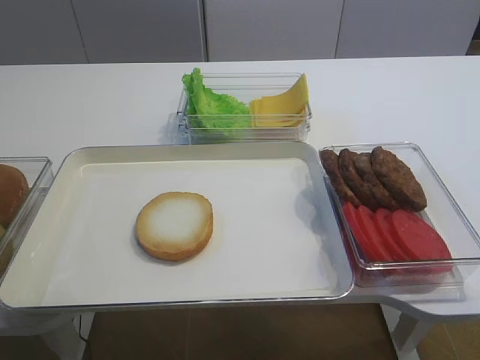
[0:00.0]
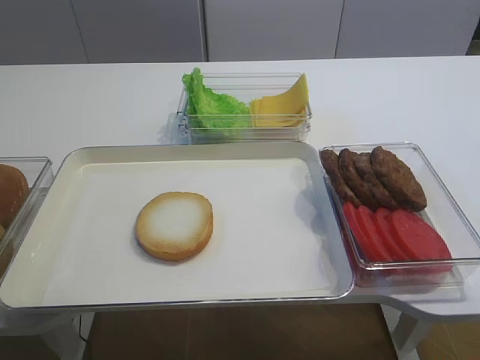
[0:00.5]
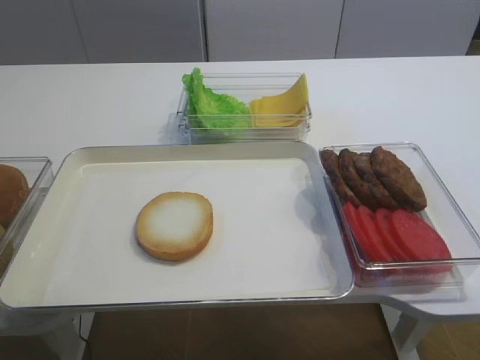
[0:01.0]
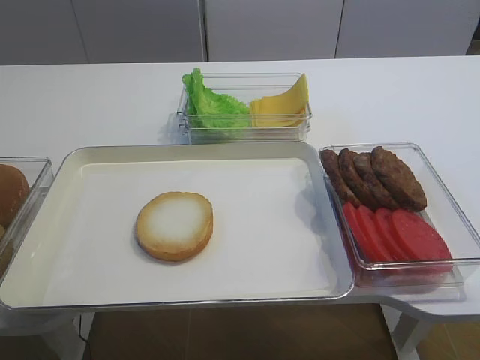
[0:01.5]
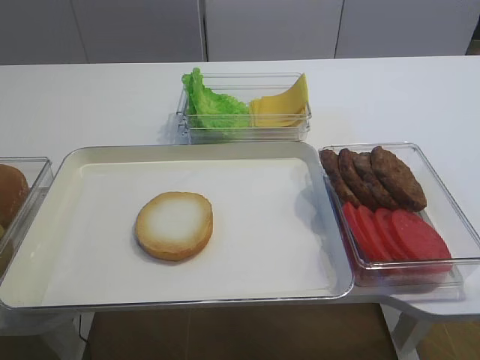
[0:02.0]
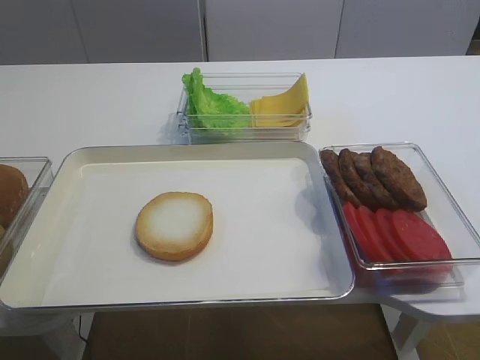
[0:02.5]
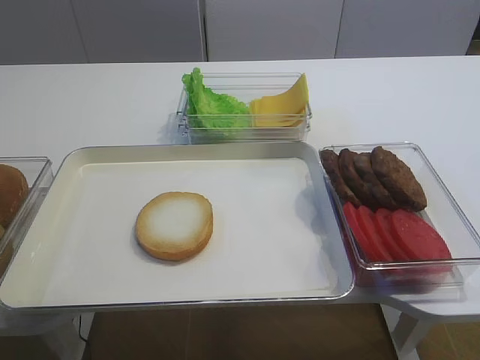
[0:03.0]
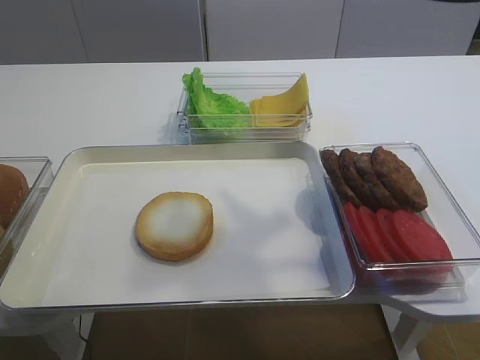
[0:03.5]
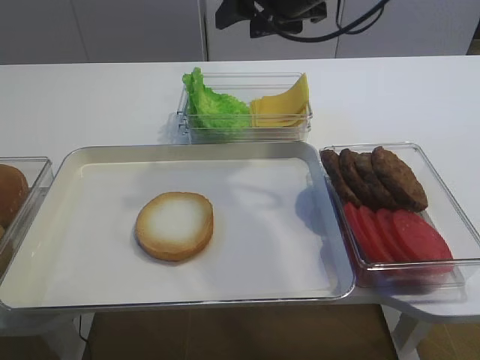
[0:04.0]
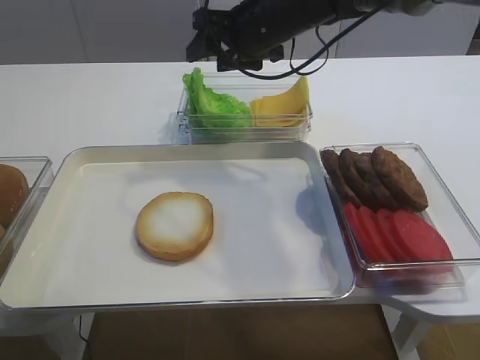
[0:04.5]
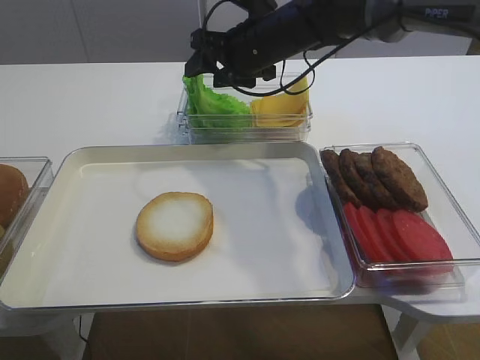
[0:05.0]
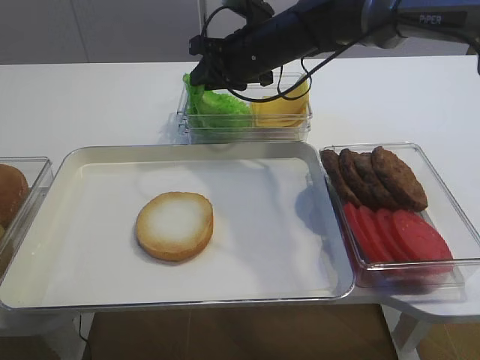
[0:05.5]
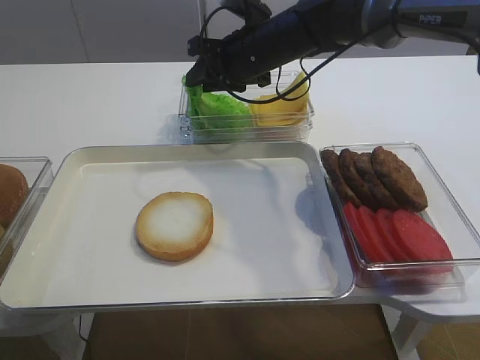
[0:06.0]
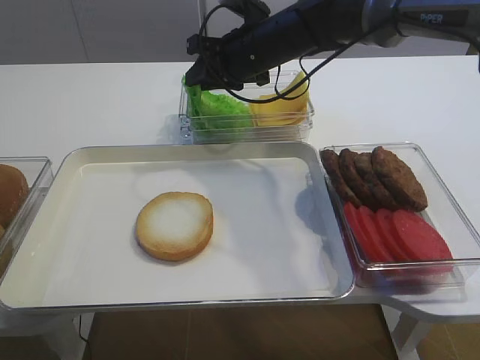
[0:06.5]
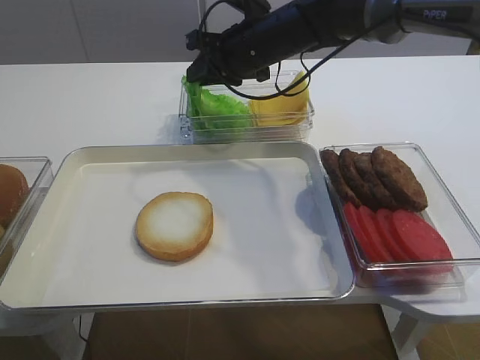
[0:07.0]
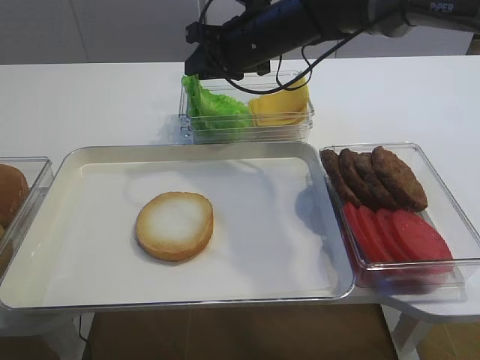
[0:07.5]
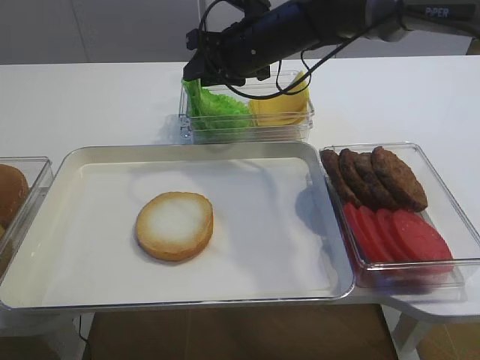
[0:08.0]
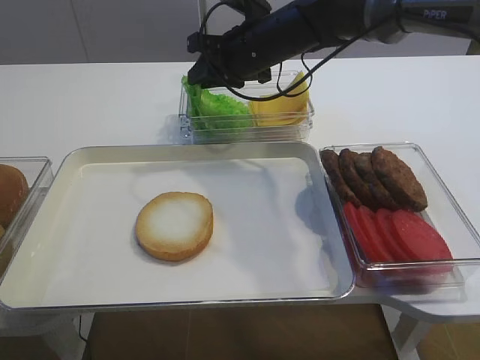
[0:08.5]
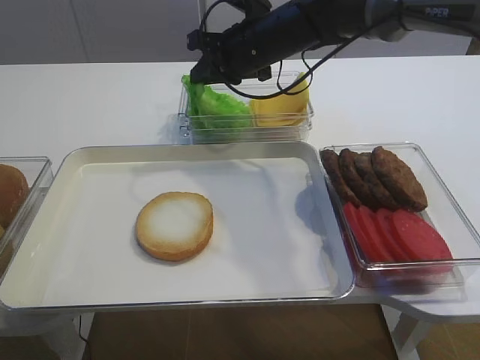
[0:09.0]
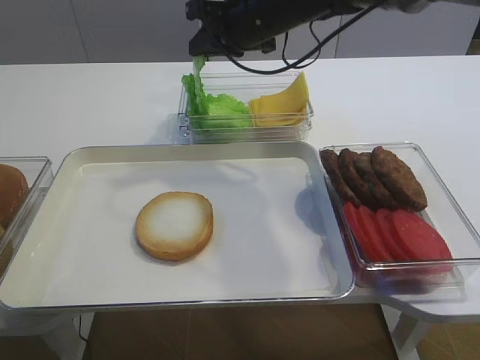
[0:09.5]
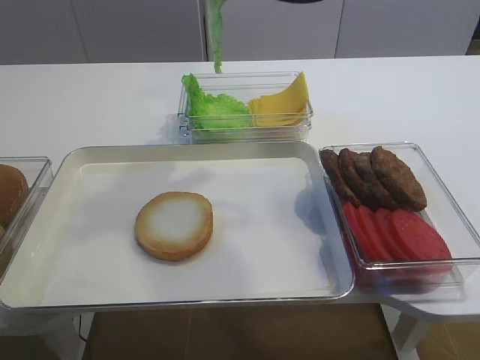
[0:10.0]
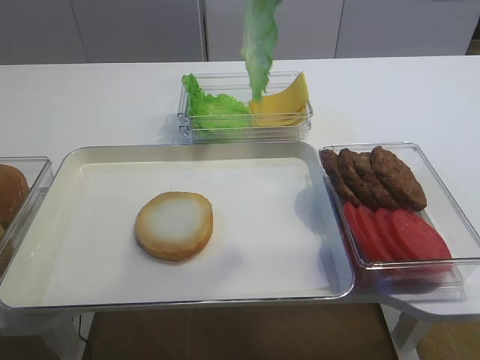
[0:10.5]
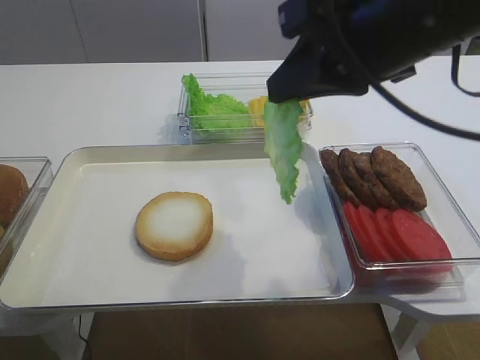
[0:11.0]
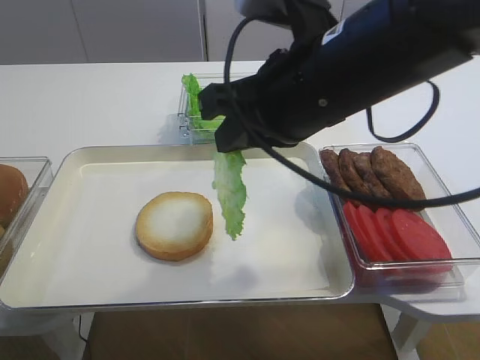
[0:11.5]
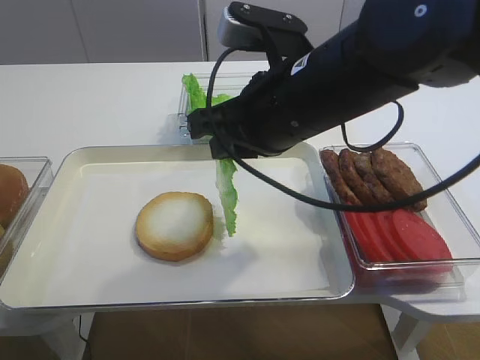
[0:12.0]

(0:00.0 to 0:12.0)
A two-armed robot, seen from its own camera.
Step, 0:00.0 - 0:09.0: Pick up the lettuce leaf with the right gripper.
0:02.0 - 0:04.0: The right gripper is displaced forward and to the left by some 50 cm.
0:04.0 - 0:06.0: The right gripper shifts some 10 cm downward, and closes.
0:06.0 - 0:08.0: There are only small adjustments of the grippers.
0:08.0 - 0:10.0: The right gripper moves upward and backward, roughly 15 cm, and closes up.
0:10.0 - 0:12.0: The right gripper is displaced backward and downward by some 15 cm.

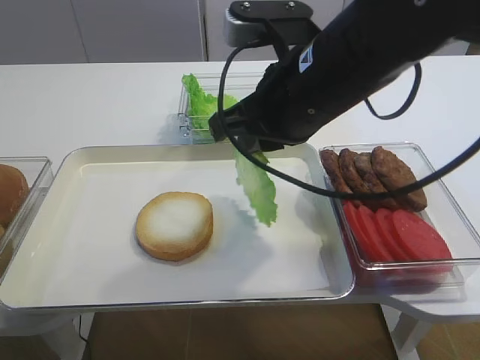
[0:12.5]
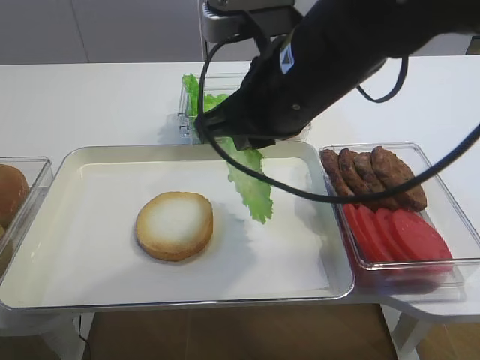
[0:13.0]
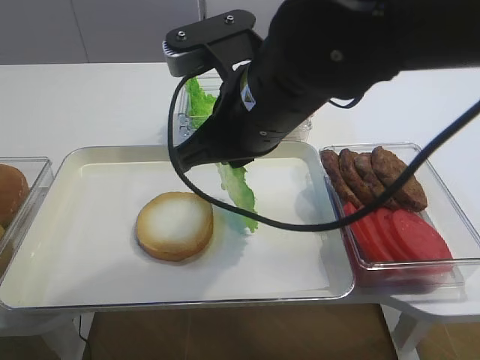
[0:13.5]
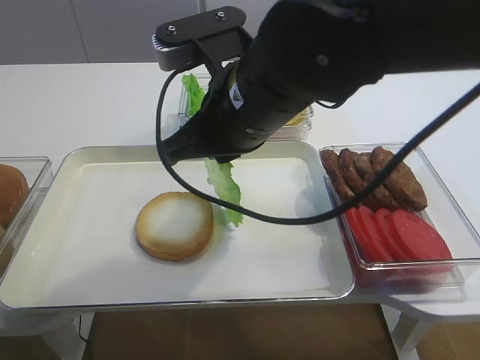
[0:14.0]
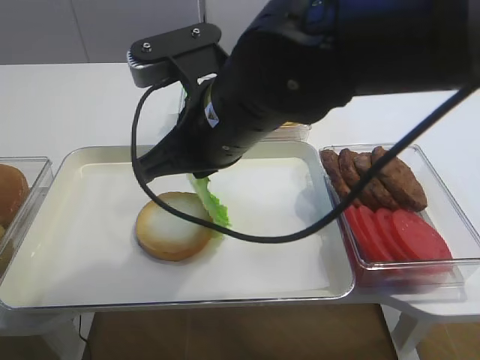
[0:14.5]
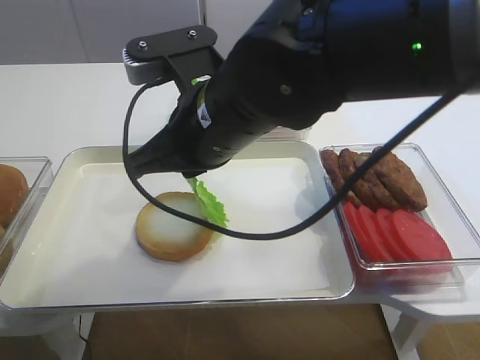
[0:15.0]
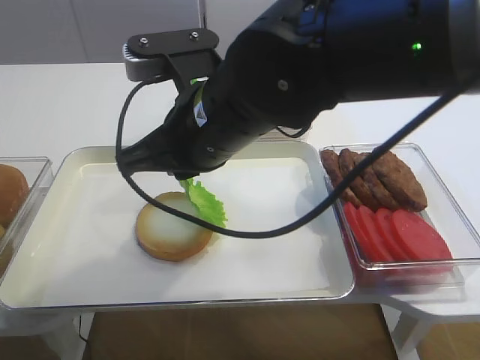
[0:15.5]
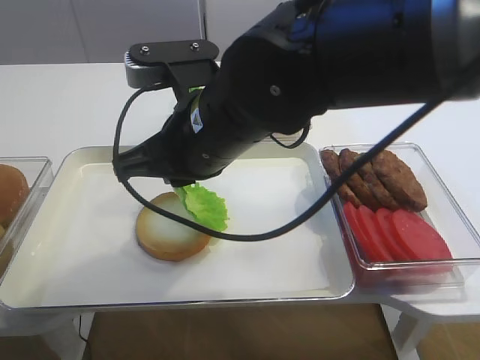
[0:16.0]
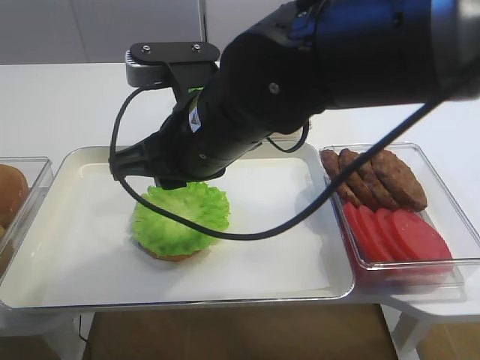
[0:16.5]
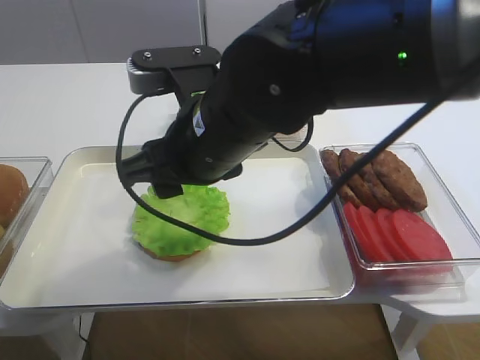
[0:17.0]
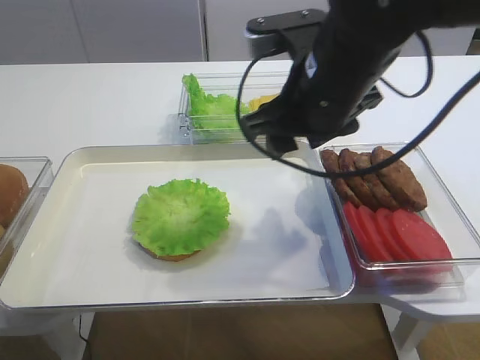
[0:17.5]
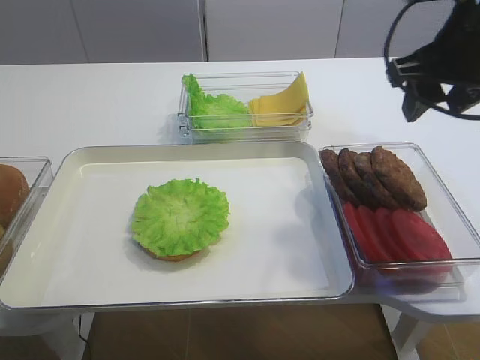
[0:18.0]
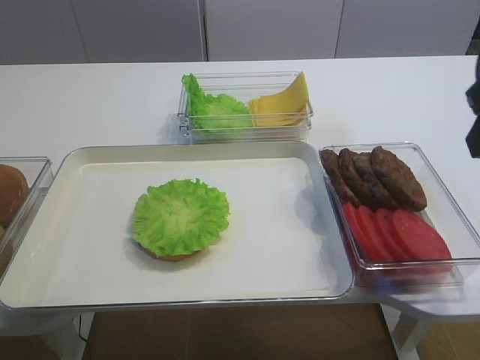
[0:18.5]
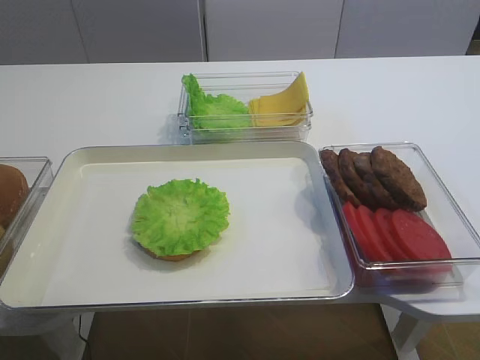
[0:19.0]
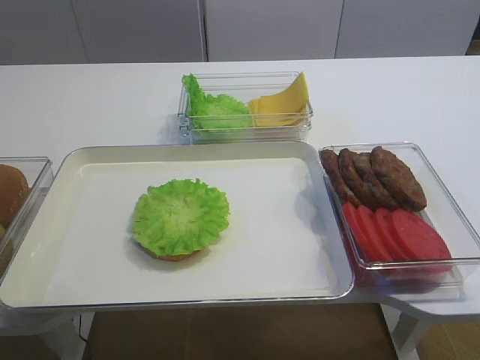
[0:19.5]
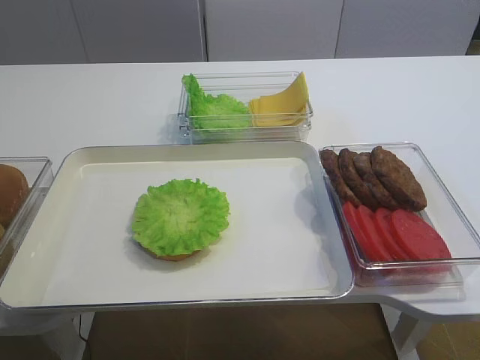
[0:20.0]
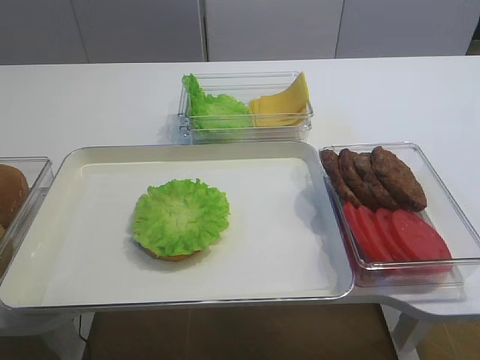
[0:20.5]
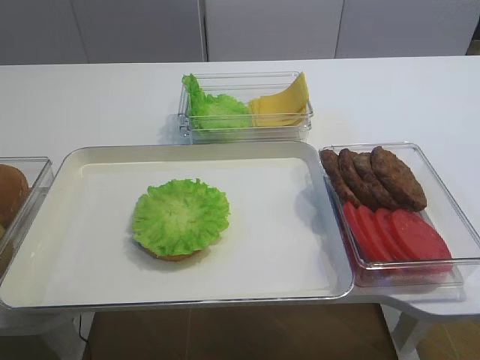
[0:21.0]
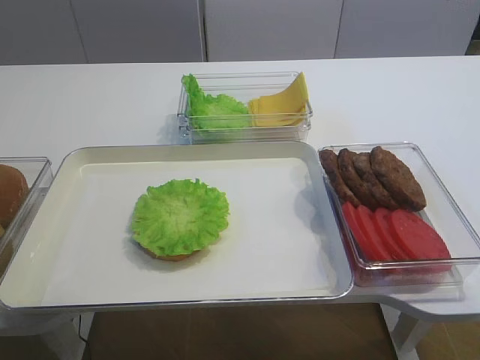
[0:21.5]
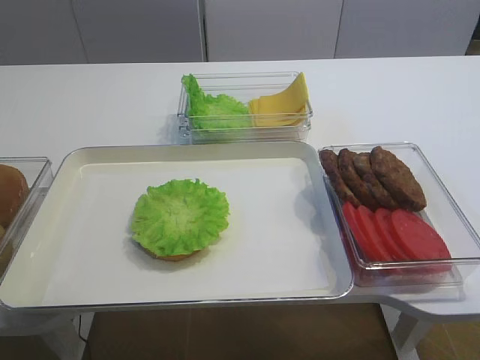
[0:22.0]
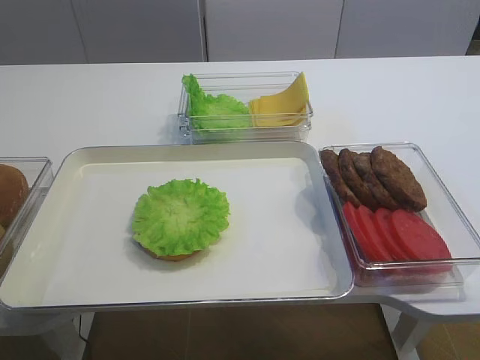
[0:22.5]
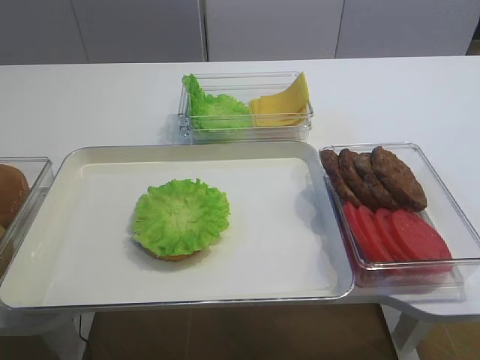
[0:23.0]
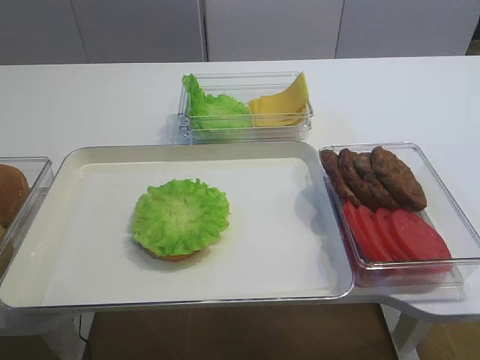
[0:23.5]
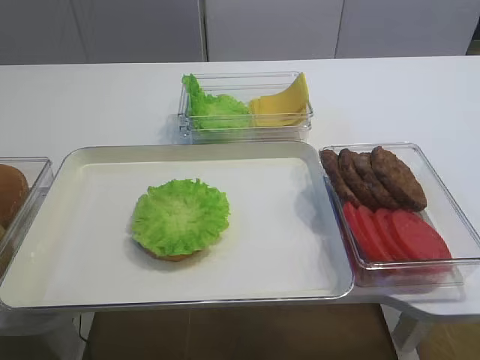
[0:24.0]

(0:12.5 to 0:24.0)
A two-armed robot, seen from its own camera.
Step, 0:12.5 - 0:16.5: Place the lettuce leaf on the bread slice with the right gripper.
0:12.5 - 0:14.5: The right gripper travels to the left by approximately 5 cm.
0:14.5 - 0:16.5: The grippers stay close to where they were, moving slightly.
0:16.5 - 0:18.5: The right gripper moves to the right, about 25 cm, and opens.
0:18.5 - 0:20.0: The right gripper heads backward, covering approximately 20 cm.
0:22.0 - 0:24.0: The two grippers keep their place.

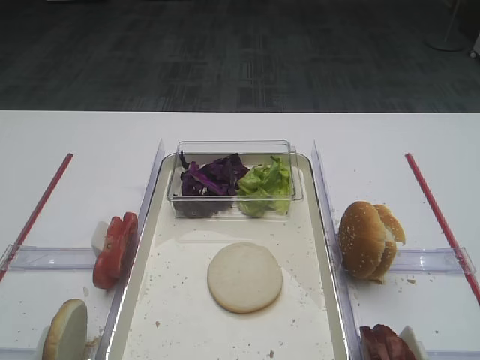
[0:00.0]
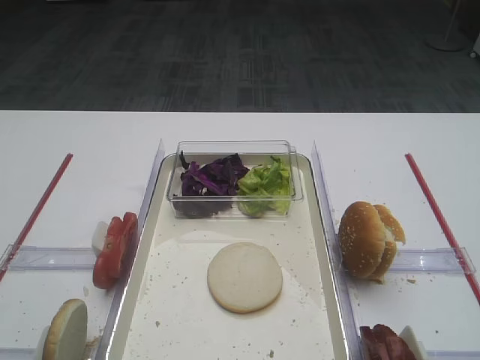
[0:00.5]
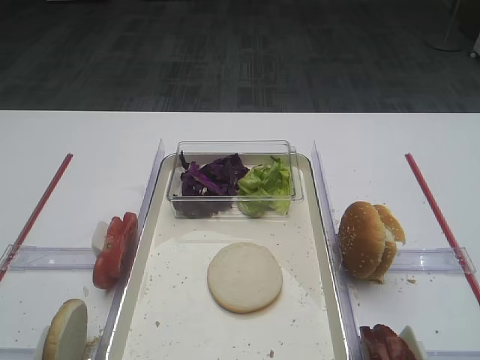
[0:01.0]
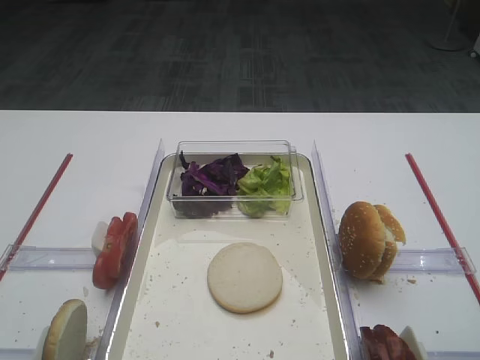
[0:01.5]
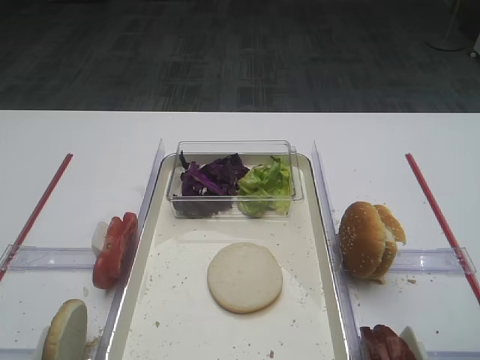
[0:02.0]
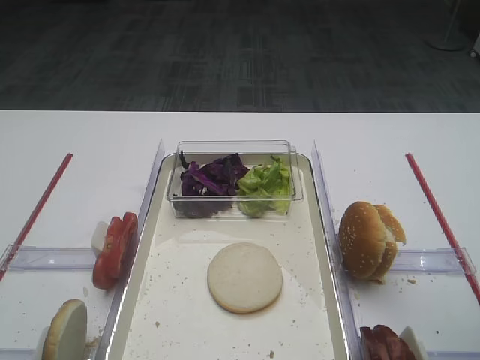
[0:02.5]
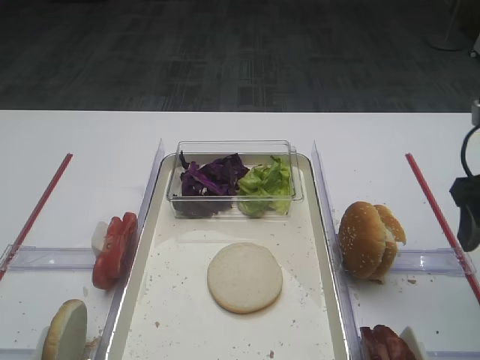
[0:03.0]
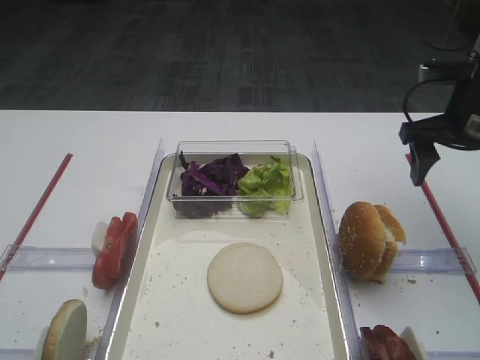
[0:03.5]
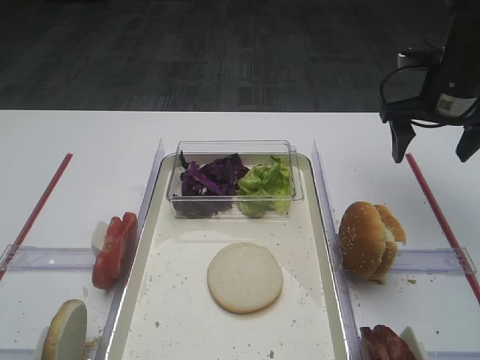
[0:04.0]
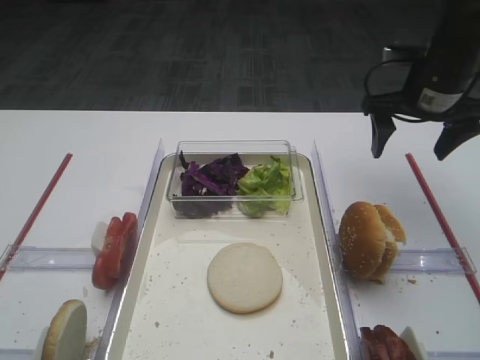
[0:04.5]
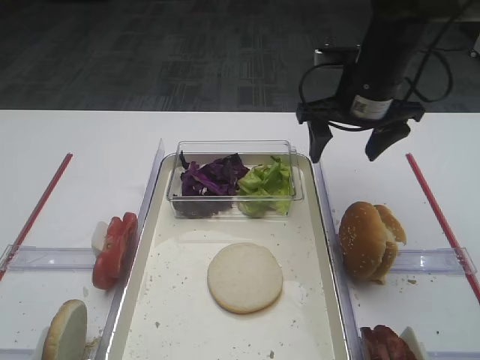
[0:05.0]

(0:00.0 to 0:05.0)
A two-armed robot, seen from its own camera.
0:02.5 - 0:05.0: The right gripper is displaced forward and to the left by roughly 30 cm.
